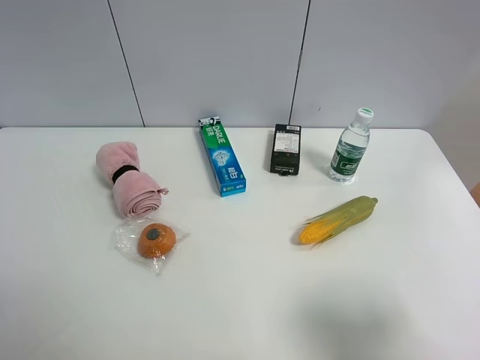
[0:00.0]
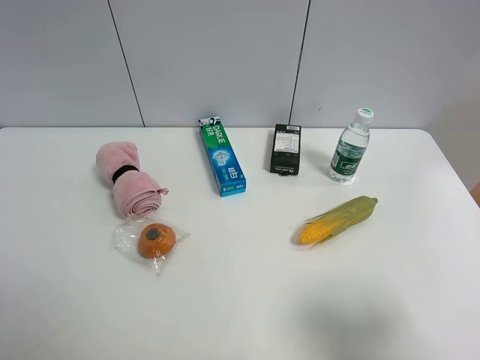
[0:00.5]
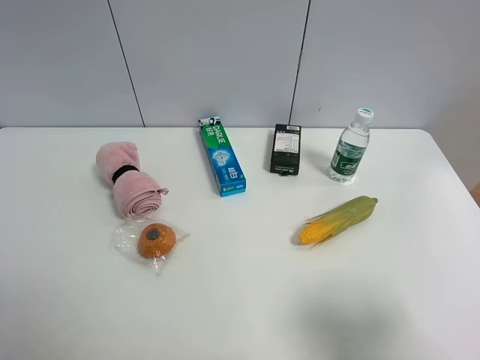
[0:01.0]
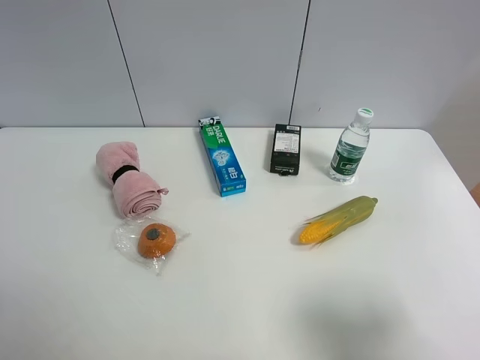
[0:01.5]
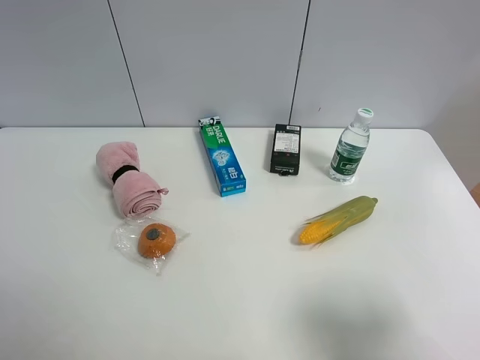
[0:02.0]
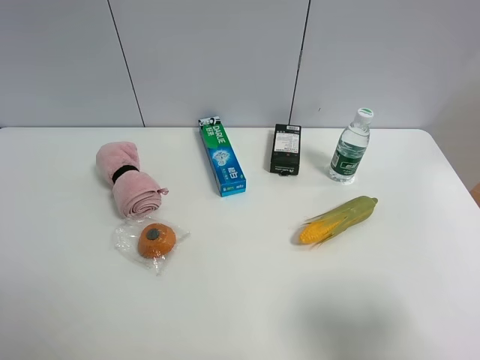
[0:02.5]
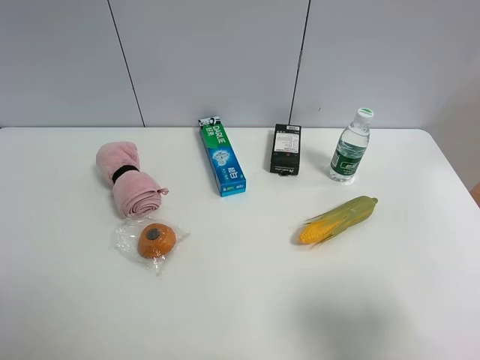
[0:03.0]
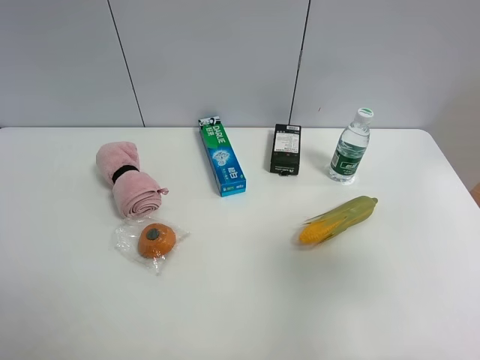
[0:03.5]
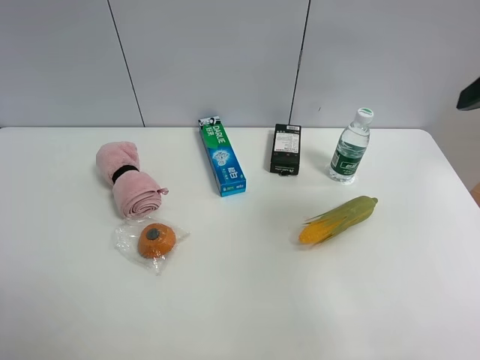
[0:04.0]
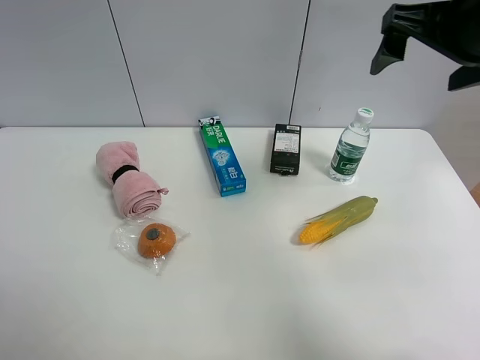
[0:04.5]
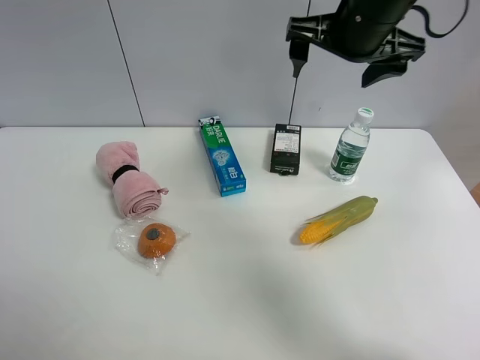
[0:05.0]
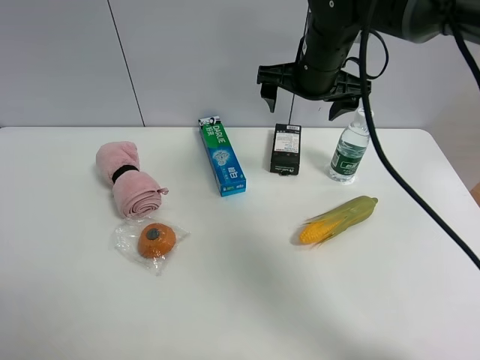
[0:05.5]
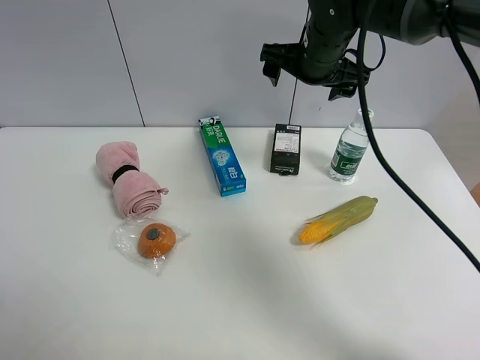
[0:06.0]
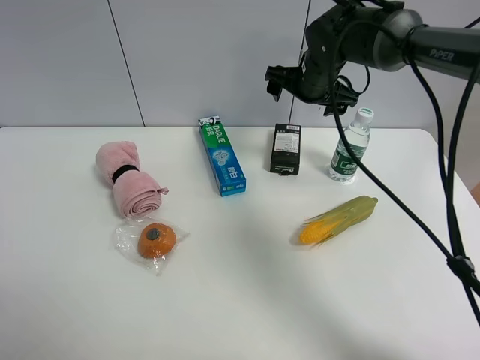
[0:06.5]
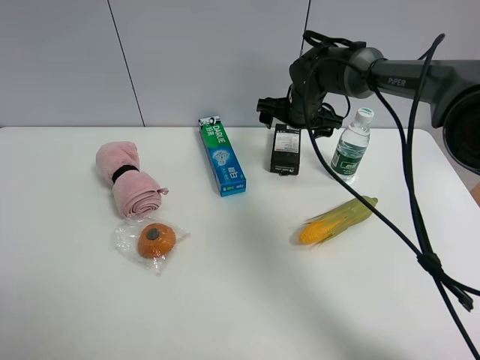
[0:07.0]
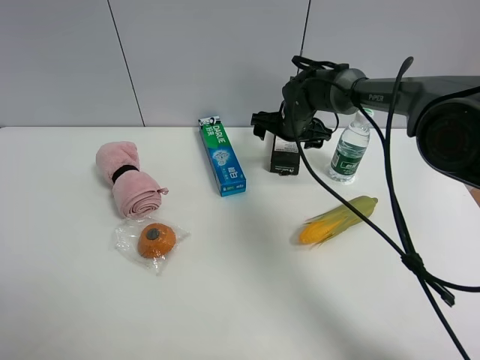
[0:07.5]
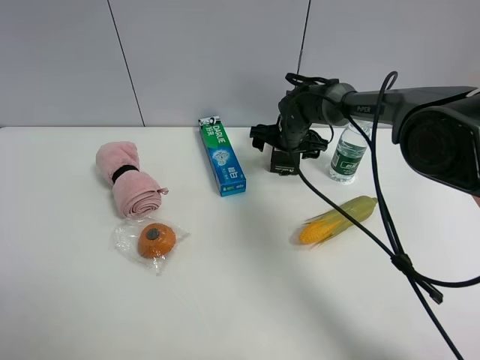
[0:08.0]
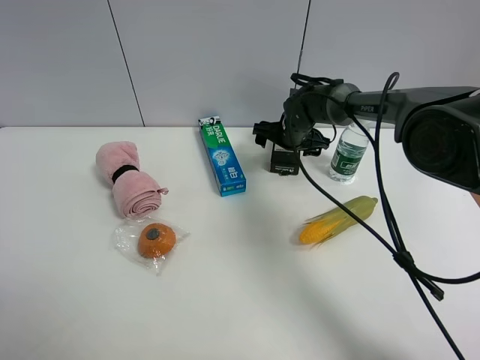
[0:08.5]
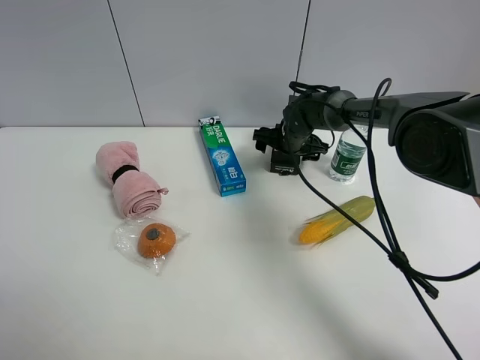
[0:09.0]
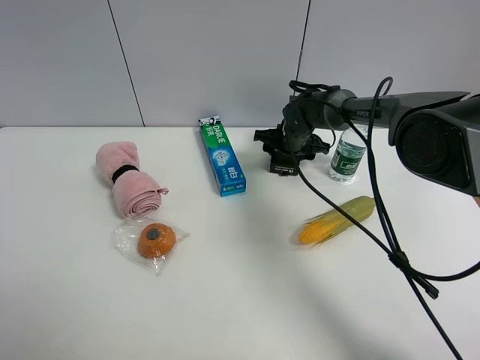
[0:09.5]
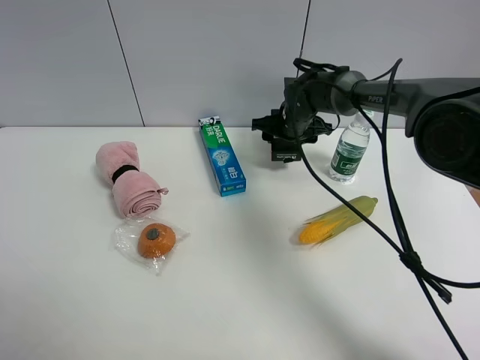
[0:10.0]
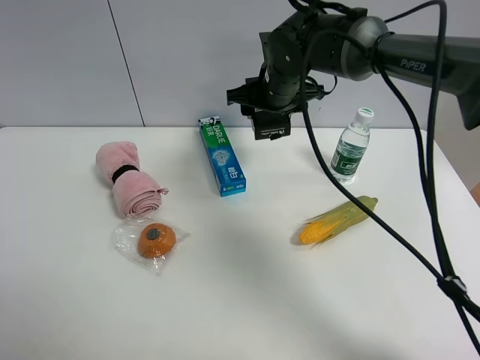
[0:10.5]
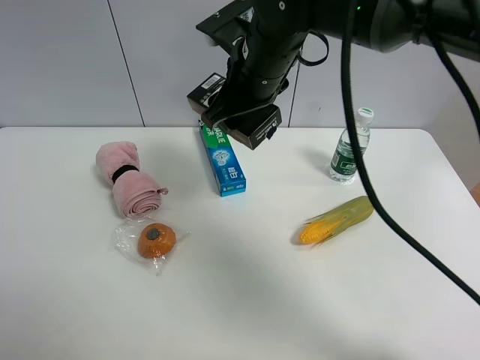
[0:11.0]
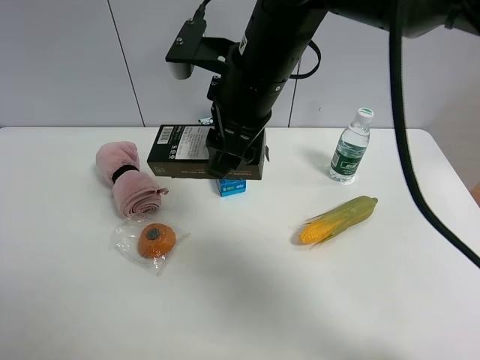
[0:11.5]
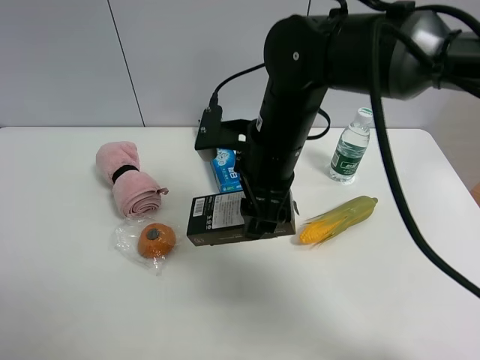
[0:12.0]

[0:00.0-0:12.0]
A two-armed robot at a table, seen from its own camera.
Task of the whole recording: the gripper move the object.
Step, 0.0 to 9.0 s: Grasp the brown box with the right gripper.
0.0 to 2.0 s: Both grippers stay about where they are.
2.0 to 4.0 s: The right gripper is displaced forward and upward by roughly 20 cm.
4.0 to 6.0 s: The right gripper travels forward, to the left and downward by approximately 30 cm.
6.0 to 8.0 s: The right gripper heads downward, covering approximately 20 cm.
8.0 to 10.0 s: The right gripper closes up.
10.0 to 12.0 s: The right gripper shifts about 25 cm backward and upward.

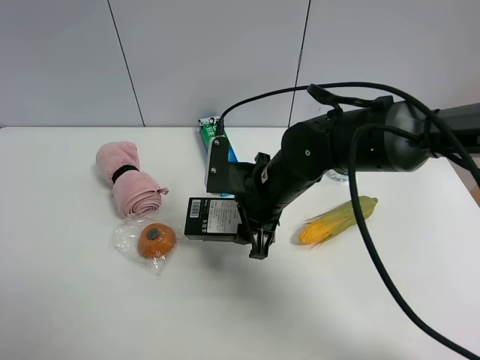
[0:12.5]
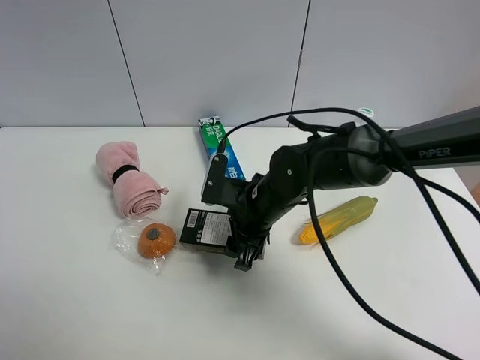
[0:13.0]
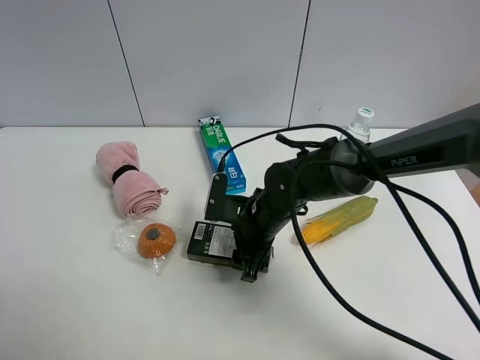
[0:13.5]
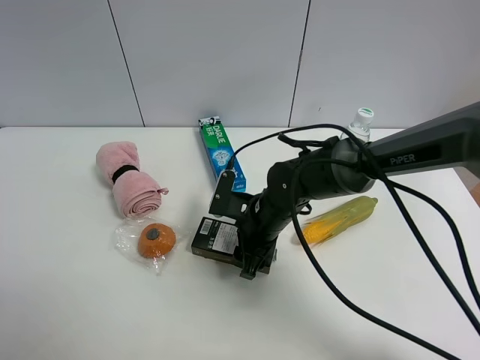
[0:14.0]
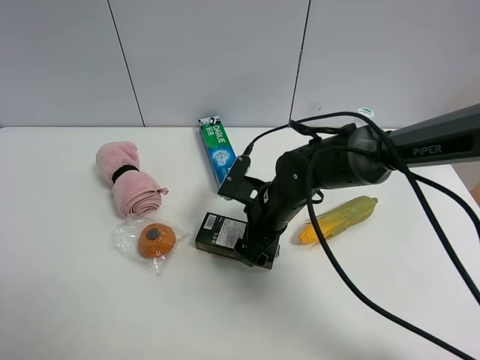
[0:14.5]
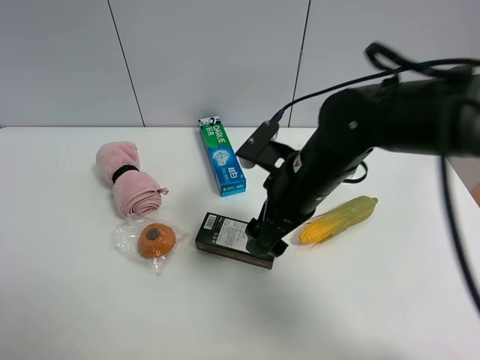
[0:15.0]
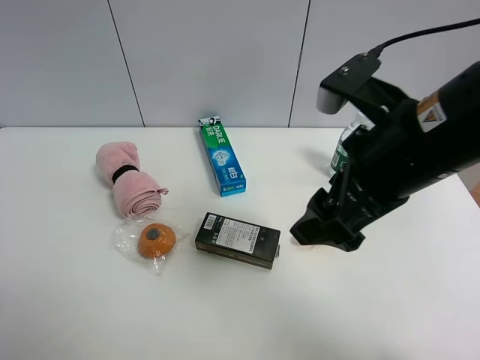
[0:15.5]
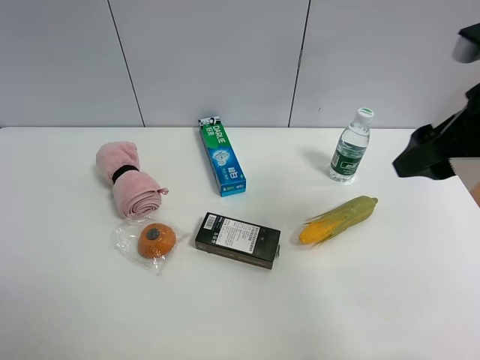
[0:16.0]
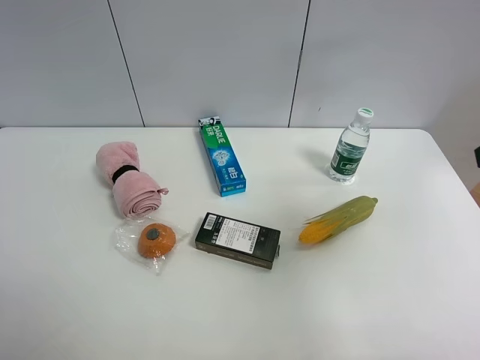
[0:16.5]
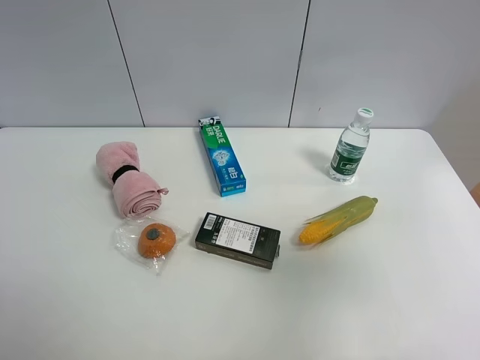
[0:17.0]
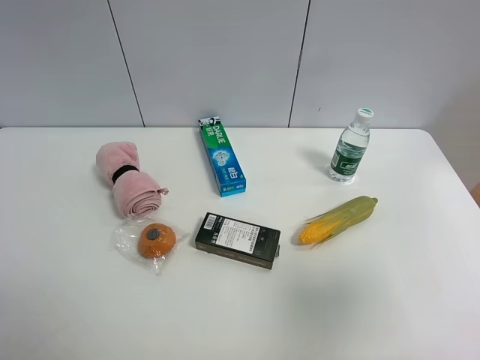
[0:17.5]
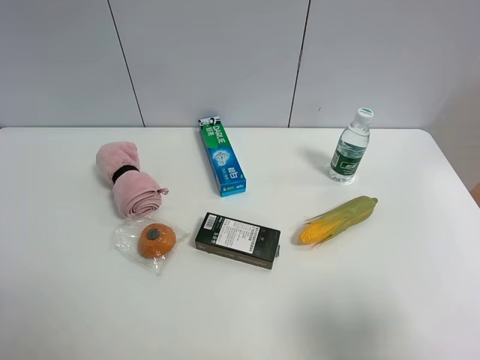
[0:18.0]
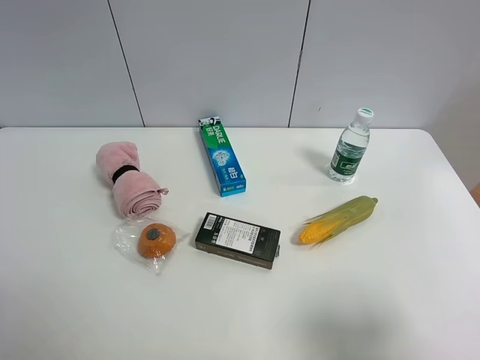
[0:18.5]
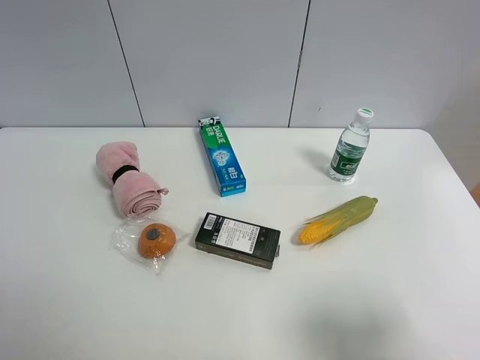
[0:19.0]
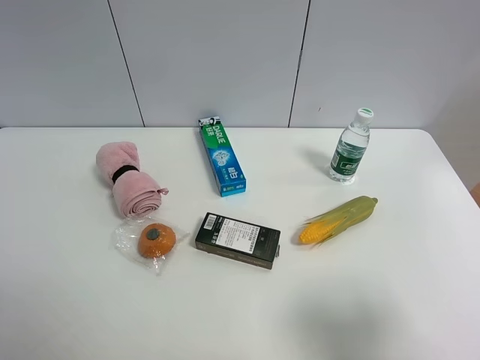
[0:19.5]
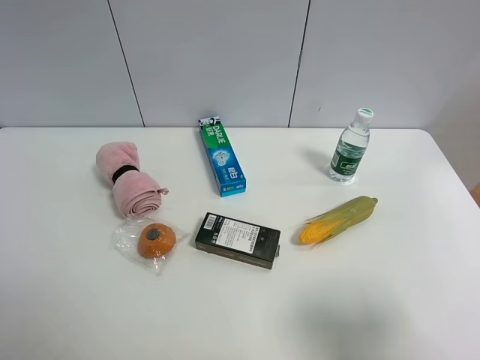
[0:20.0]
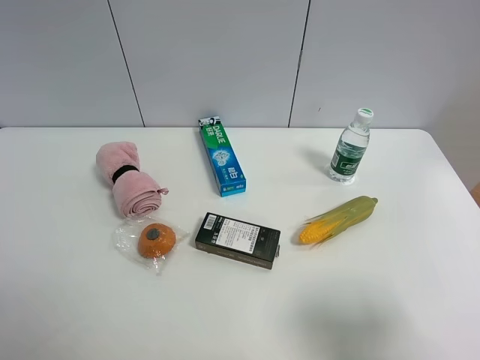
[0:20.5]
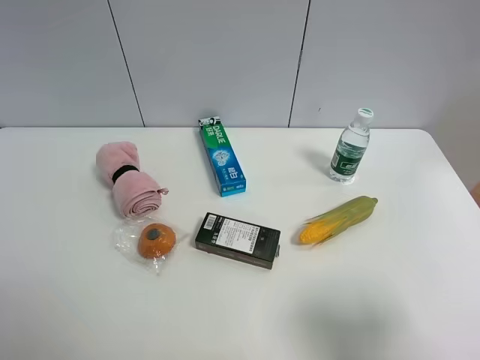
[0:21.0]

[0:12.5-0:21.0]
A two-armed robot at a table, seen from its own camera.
Task of the whole recording: the gripper move the object.
12.5 to 14.5 s: The right gripper shifts about 5 cm downward, and opens its fingers.
14.5 to 16.5 s: The right gripper heads upward, to the right and backward, covering approximately 40 cm.
16.5 to 19.0 s: The right gripper moves backward and downward, approximately 20 cm, and opens.
19.0 to 21.0 s: Both grippers stay put.

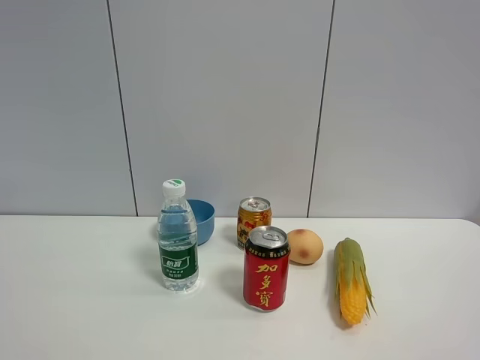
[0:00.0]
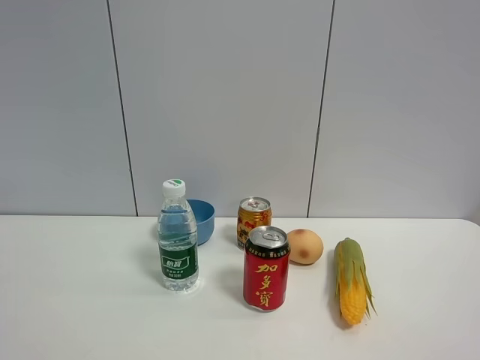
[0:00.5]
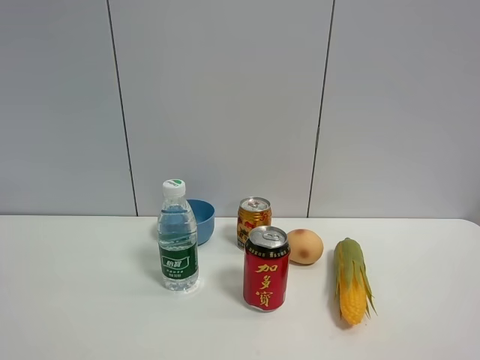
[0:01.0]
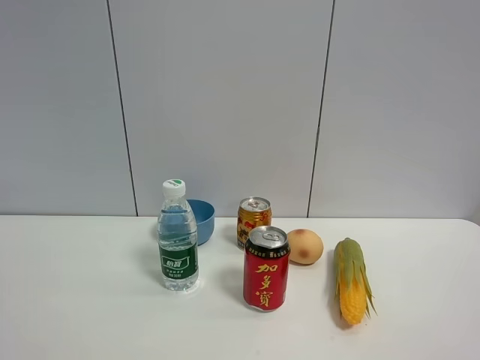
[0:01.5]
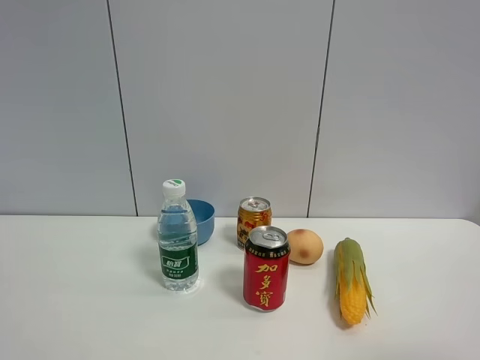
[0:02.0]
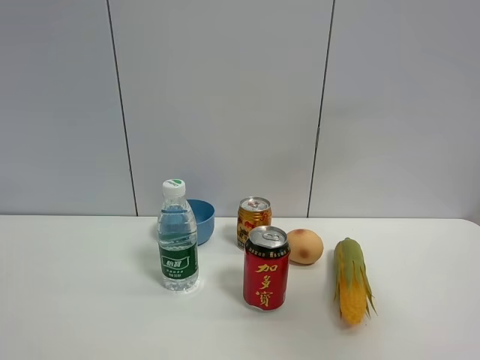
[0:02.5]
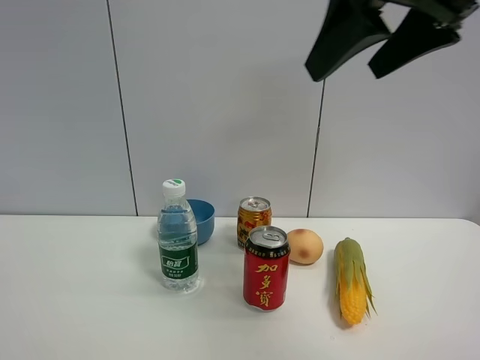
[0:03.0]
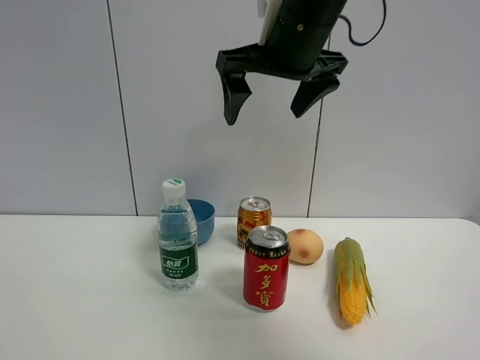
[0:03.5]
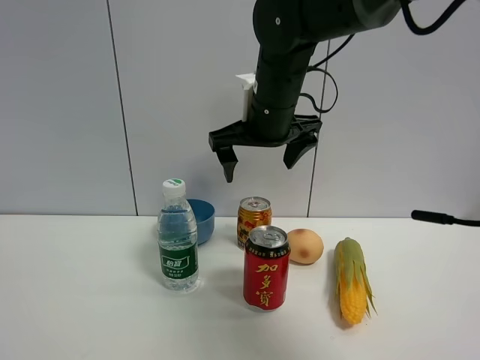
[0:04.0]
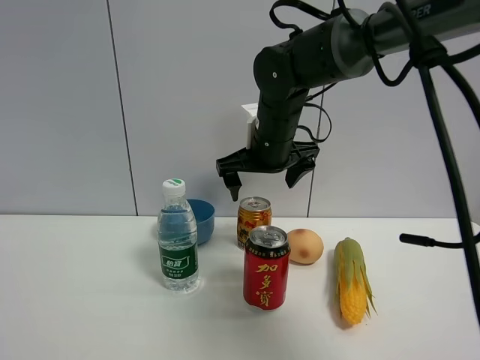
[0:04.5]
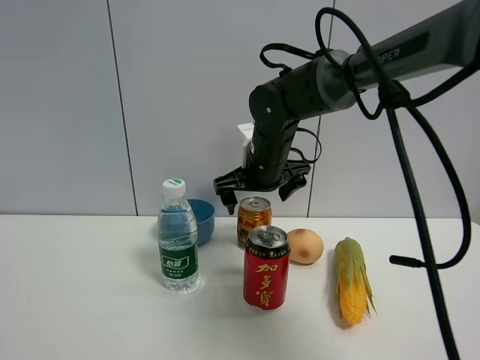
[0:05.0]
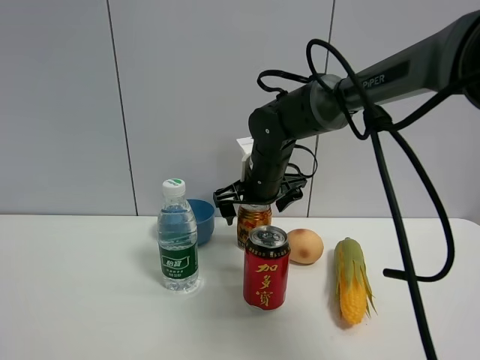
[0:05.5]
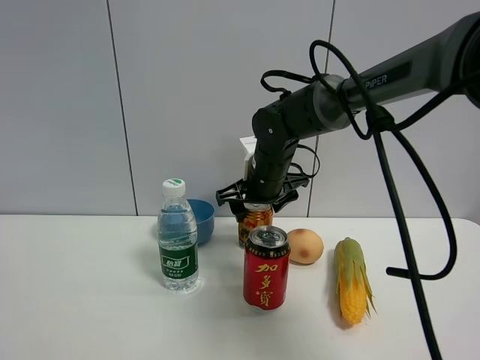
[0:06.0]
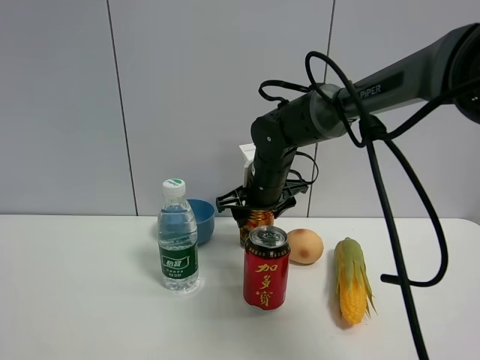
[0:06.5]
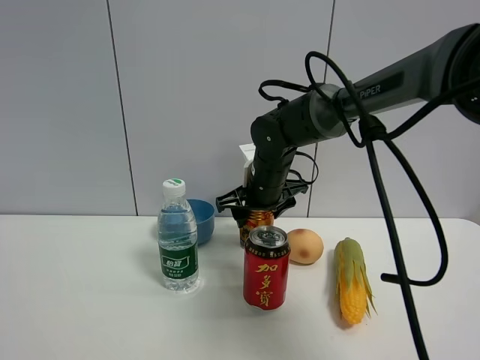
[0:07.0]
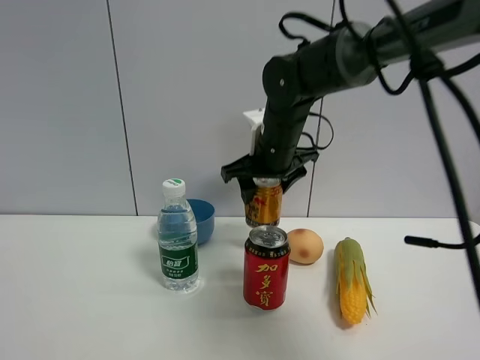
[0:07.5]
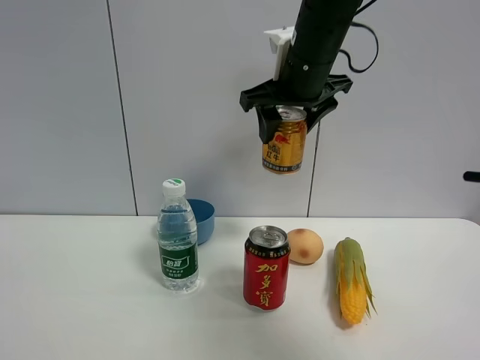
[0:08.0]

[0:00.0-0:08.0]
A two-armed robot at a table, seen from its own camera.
Task of the whole recording: the gripper move the object.
Step, 0.0 to 6.0 s: Grasp the red bull with the right gripper.
2.0 to 4.0 s: The right gripper travels forward and to the left by approximately 40 cm.
4.0 to 6.0 s: The right gripper shifts approximately 10 cm downward and forward, and closes up.
6.0 to 8.0 s: The right gripper goes about 15 cm upward.
